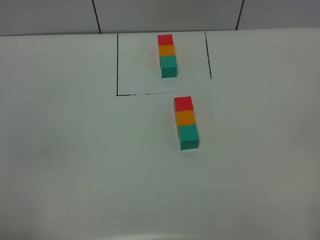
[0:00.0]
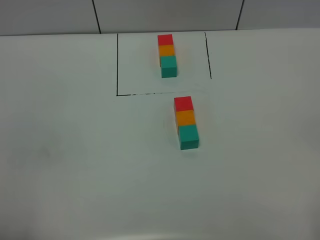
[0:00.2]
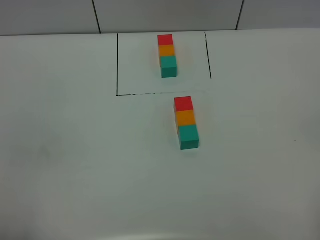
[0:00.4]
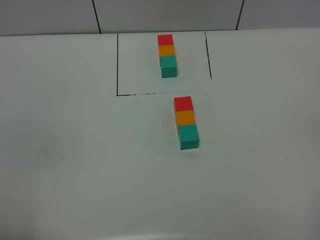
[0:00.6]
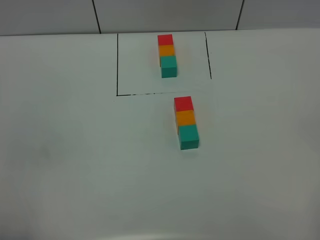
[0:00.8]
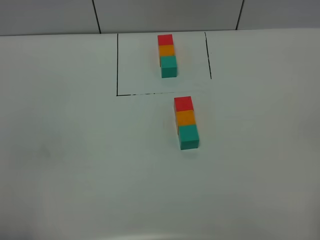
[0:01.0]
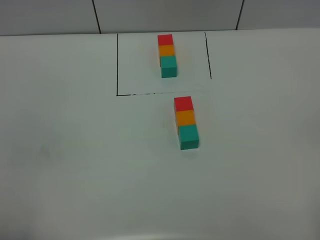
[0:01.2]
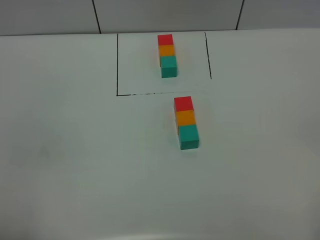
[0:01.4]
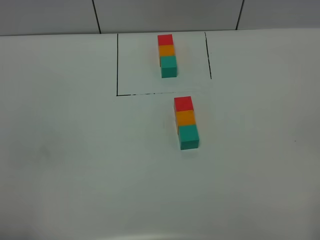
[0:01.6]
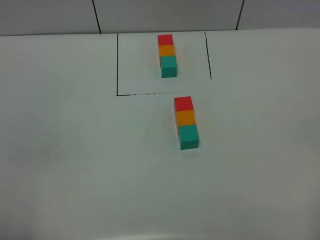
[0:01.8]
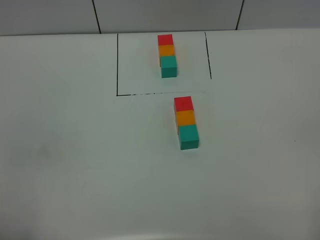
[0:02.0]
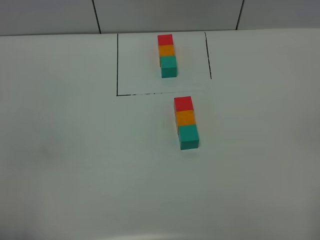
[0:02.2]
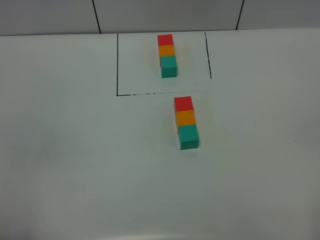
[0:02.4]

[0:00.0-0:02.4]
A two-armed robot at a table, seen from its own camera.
Task of the whole recording: According to the building block template in front, assemble the scattered blocks together.
0:01.2 to 0:02.4: The two grippers keep their place.
